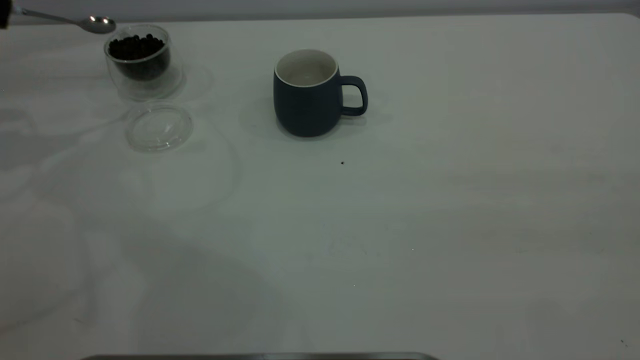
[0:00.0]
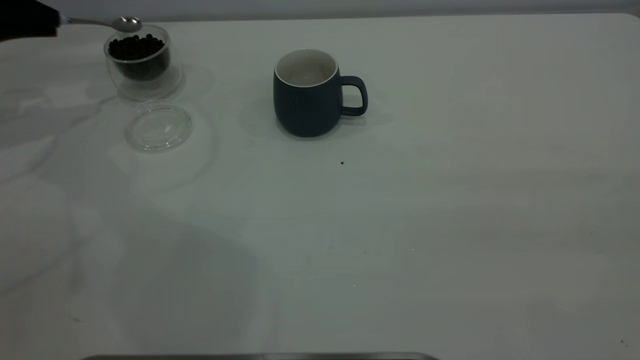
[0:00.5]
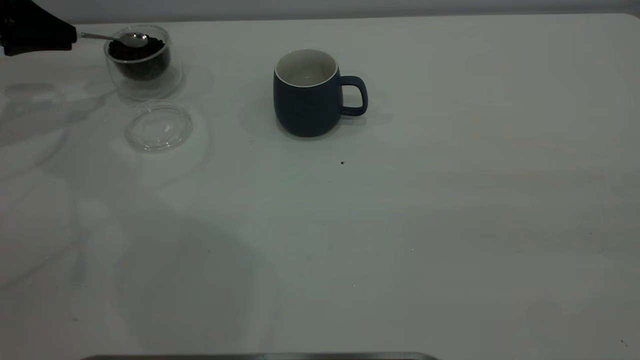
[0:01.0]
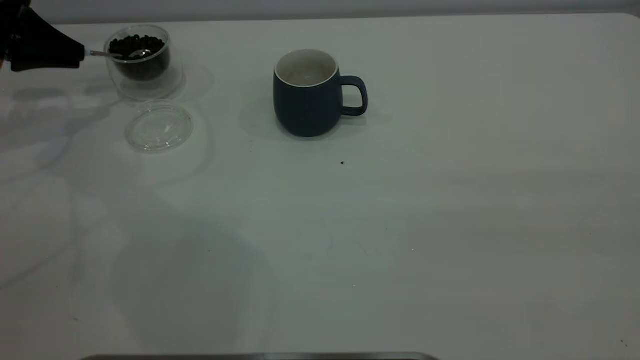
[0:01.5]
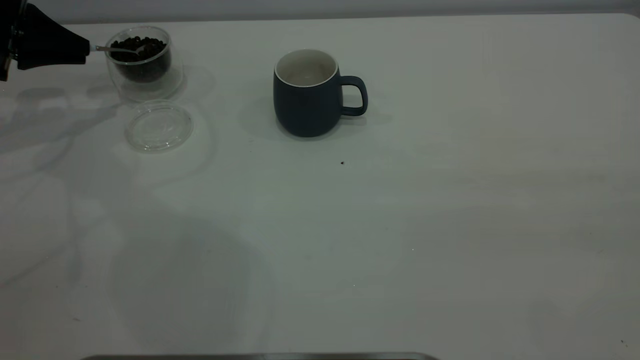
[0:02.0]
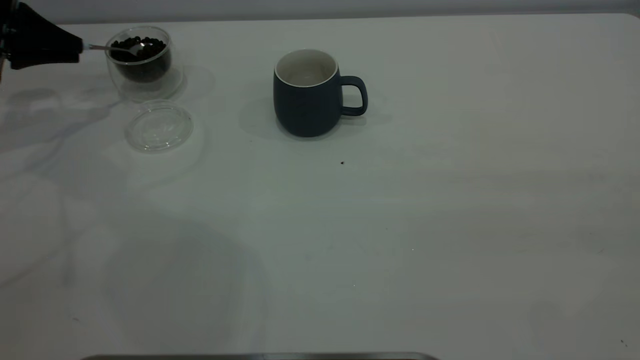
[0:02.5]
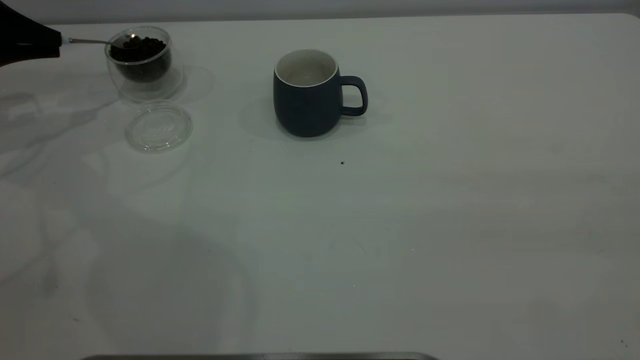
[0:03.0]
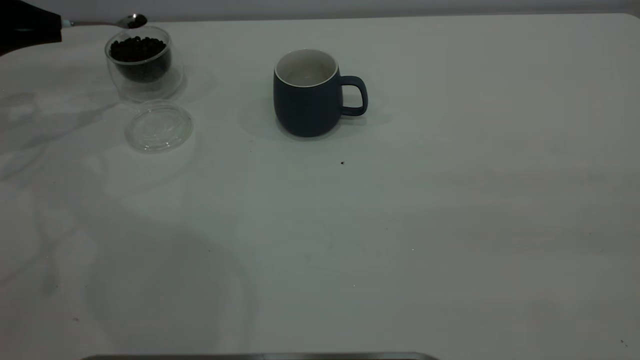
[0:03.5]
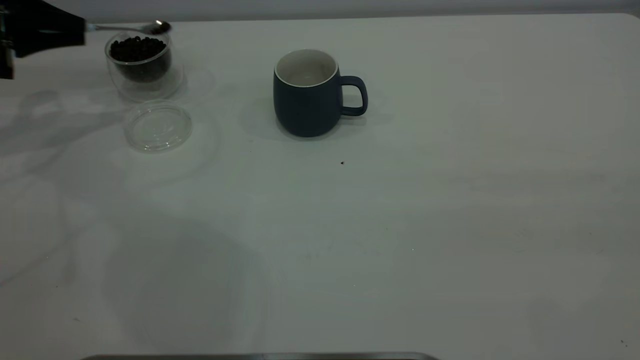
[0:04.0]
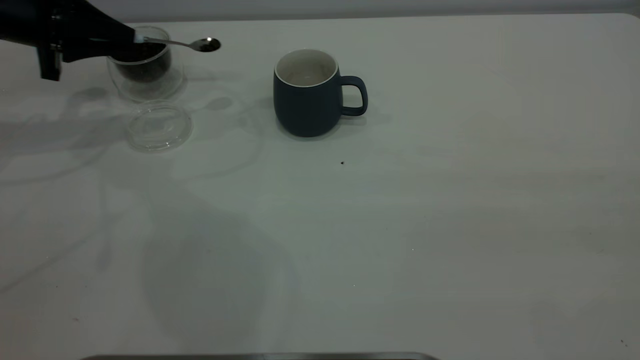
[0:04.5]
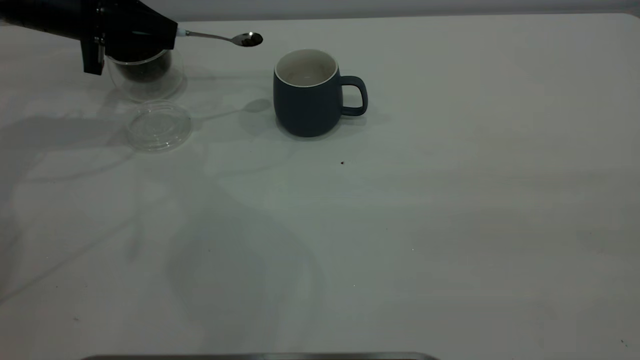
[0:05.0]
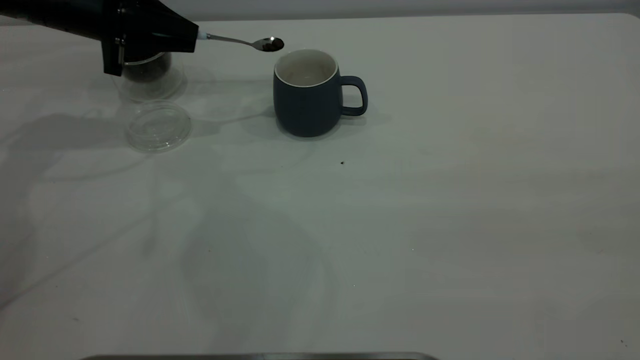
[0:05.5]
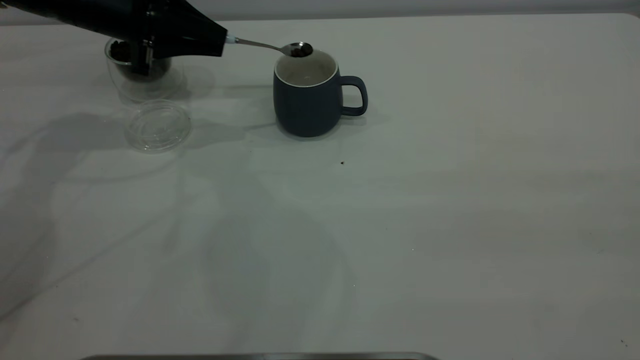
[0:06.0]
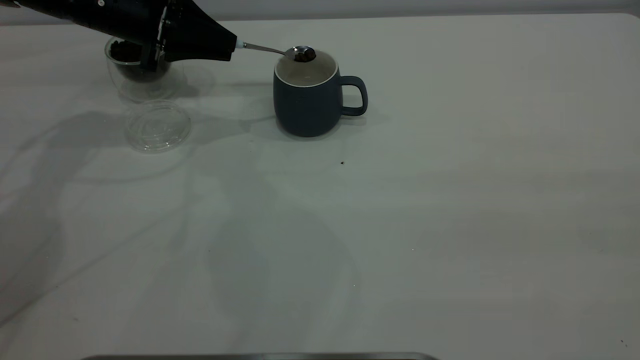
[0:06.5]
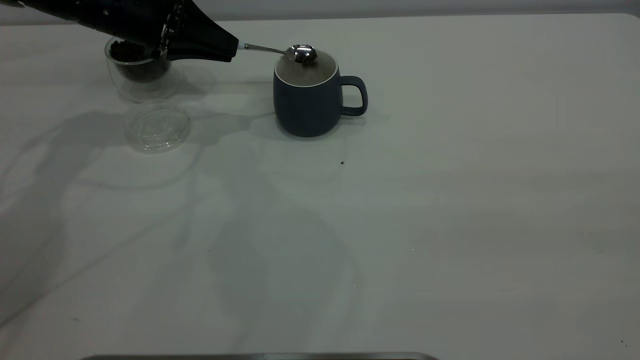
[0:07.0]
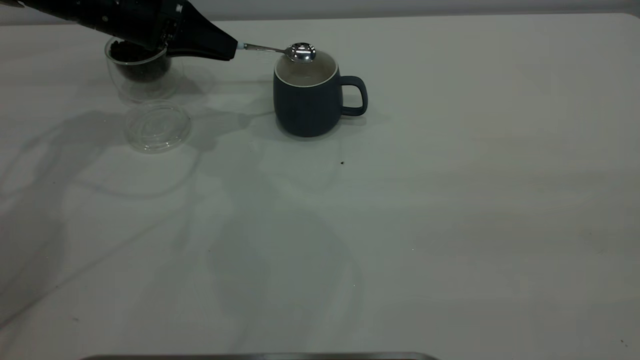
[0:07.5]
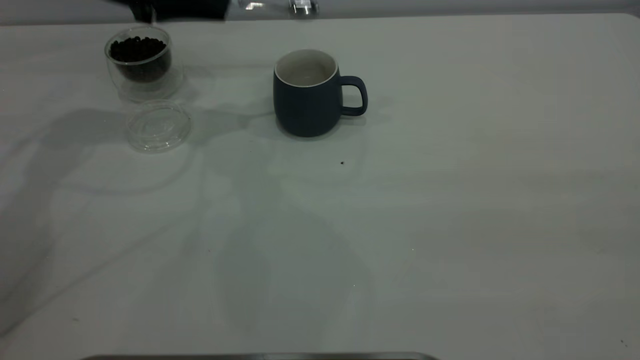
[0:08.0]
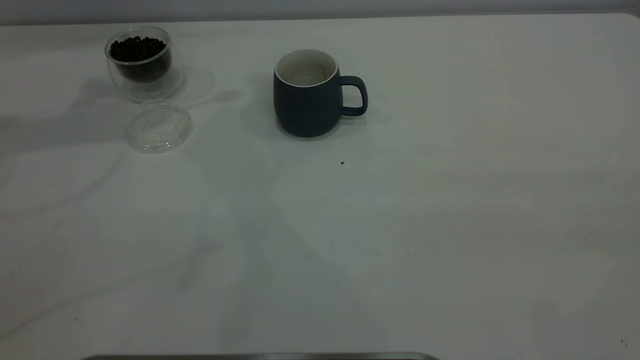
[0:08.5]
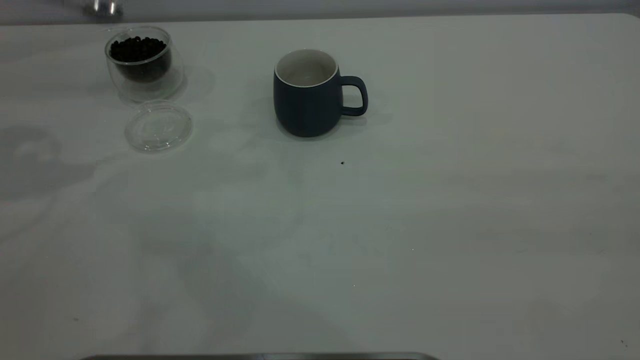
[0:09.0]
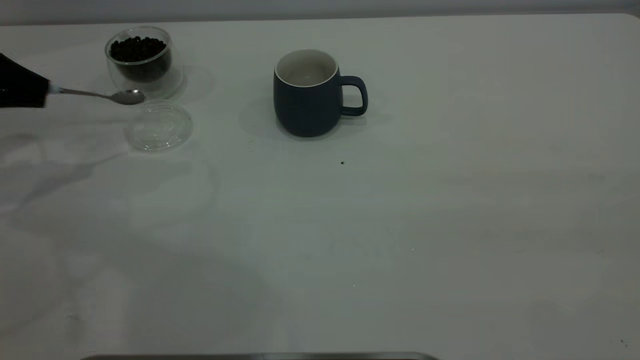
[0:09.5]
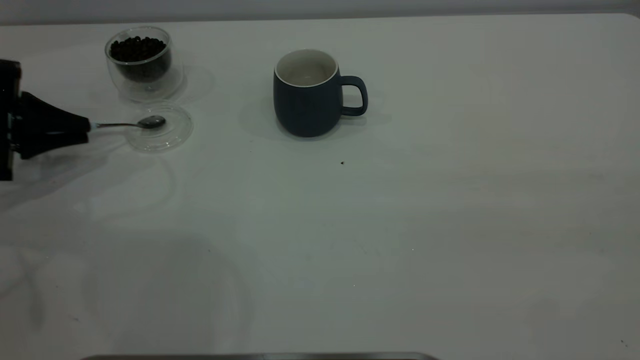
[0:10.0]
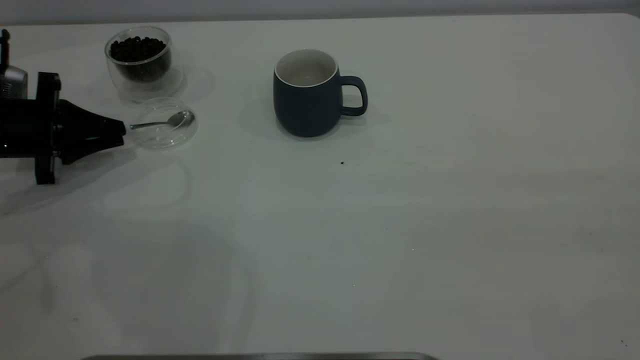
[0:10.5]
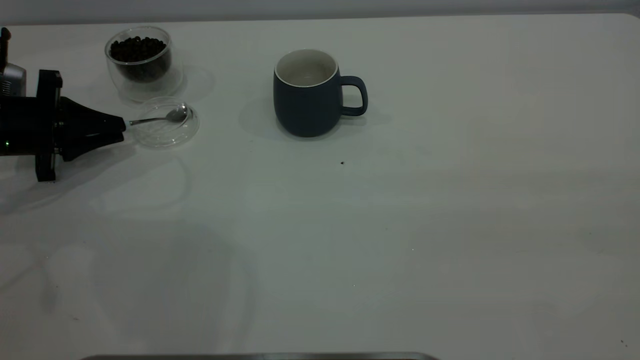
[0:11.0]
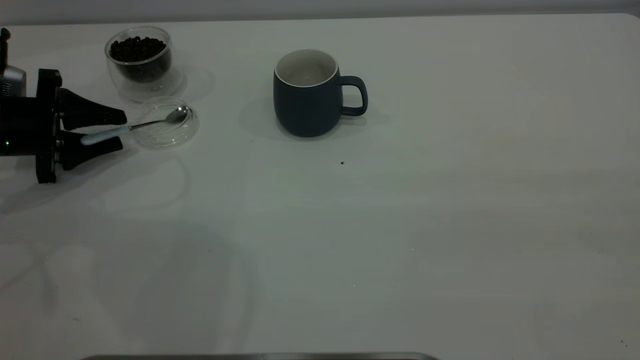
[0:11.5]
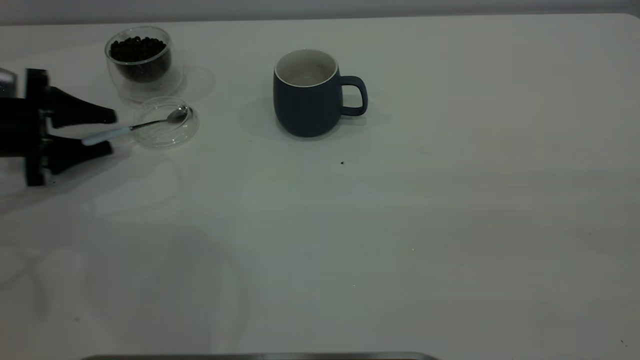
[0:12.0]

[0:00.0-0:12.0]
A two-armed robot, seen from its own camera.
Task of the whole recording: the right gripper place the grey cup in the center of the table, the left gripper take the blue spoon from the cup lid and scoop out the coffee beans from the coffee cup and put them into the grey cup, the left gripper put the spoon back into the cup lid.
Step, 0:00.0 to 0:07.5: Scoop a spoonful of beans into the cup.
0:00.0 to 0:02.0: The left gripper moves downward, some 10 cm.
0:02.0 to 0:04.0: There are only small adjustments of the grippers.
0:04.0 to 0:06.0: The left gripper shifts about 15 cm to the right.
0:06.0 to 0:08.0: The left gripper travels upward by about 5 cm.
0:08.0 to 0:10.0: The left gripper is displaced to the left, downward and backward by about 25 cm.
0:10.0 to 0:12.0: The left gripper opens its fingers.

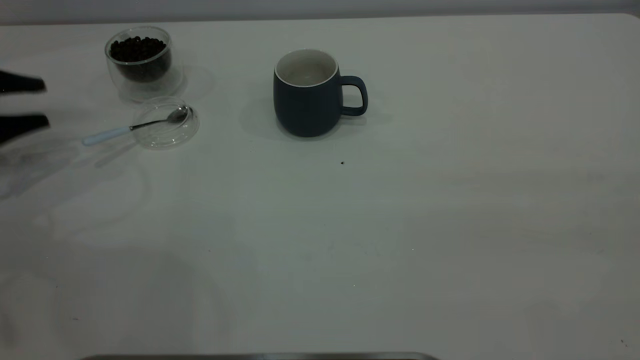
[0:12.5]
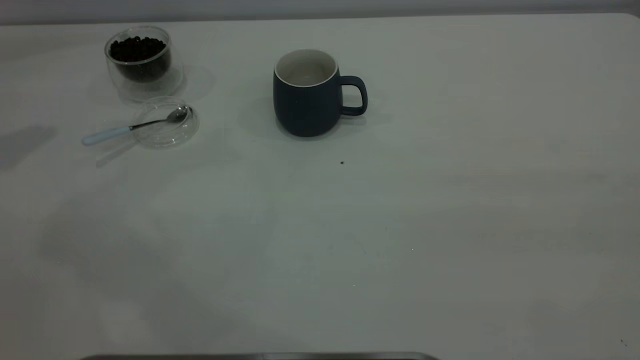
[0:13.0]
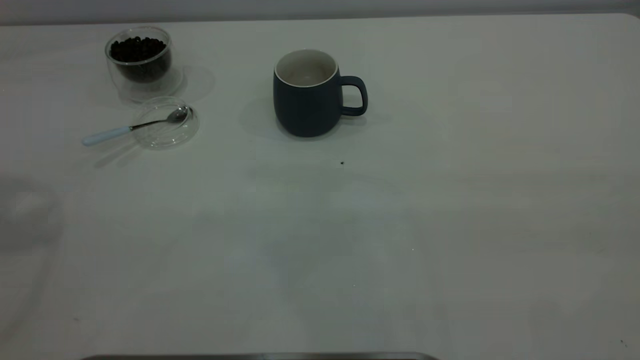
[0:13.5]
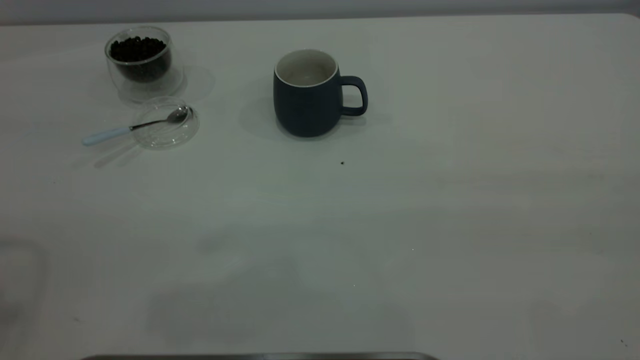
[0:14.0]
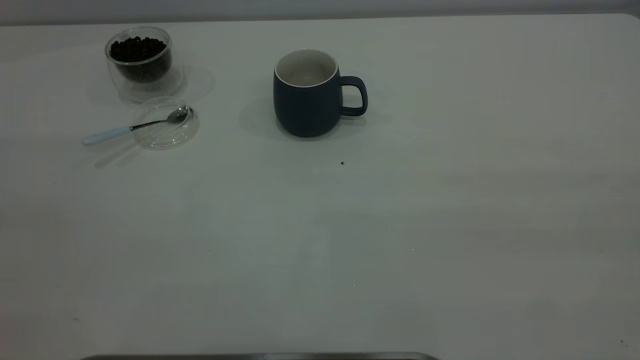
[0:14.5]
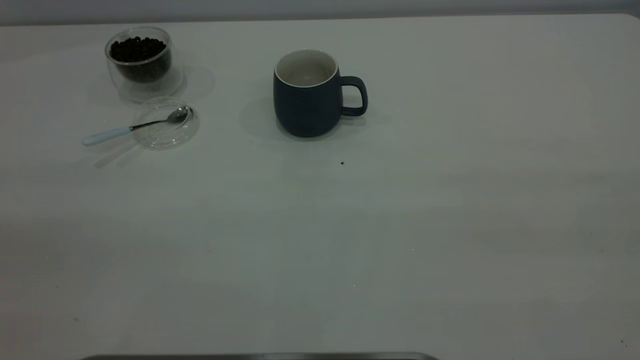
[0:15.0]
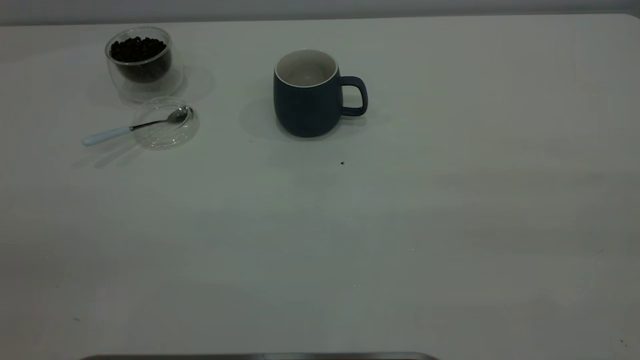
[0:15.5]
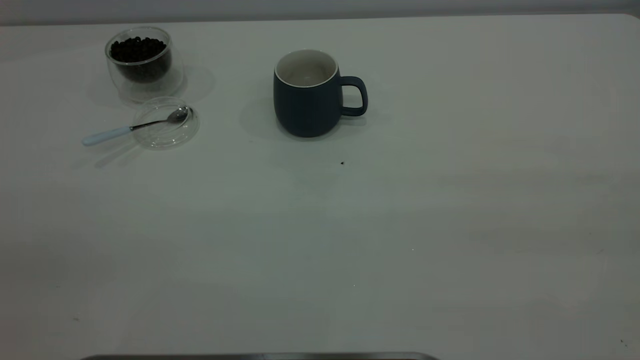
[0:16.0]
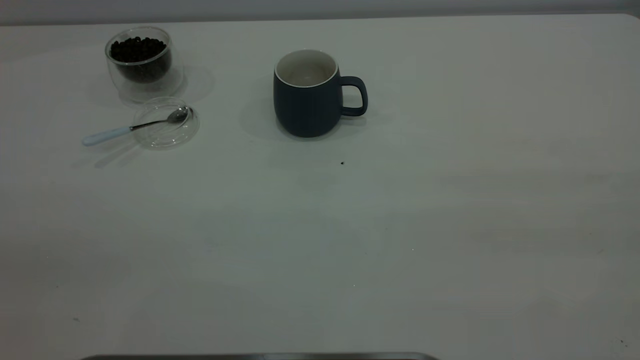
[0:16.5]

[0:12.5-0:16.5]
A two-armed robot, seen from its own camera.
Task of the whole recording: the right gripper place the grey cup in the center of the table, the left gripper take the blue spoon from the cup lid and scoop out the coffee beans from the coffee cup and put them into the grey cup, the left gripper put the spoon back into the cup lid.
0:12.5 to 0:14.5: The left gripper is displaced backward, upward and to the right by some 40 cm.

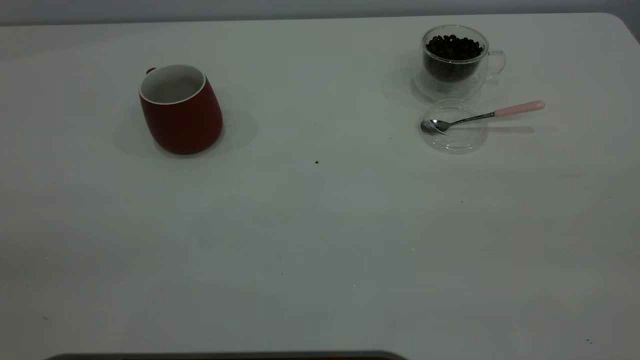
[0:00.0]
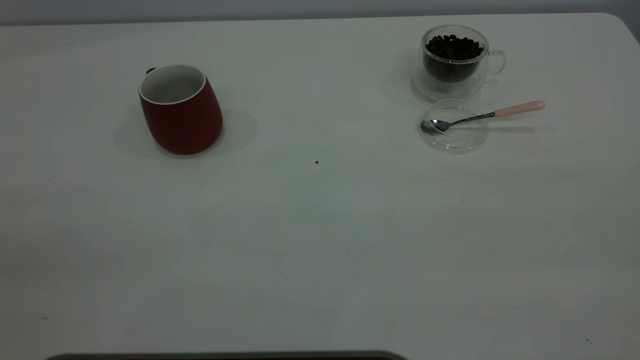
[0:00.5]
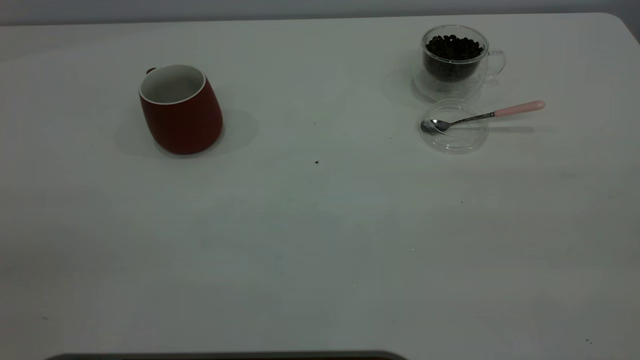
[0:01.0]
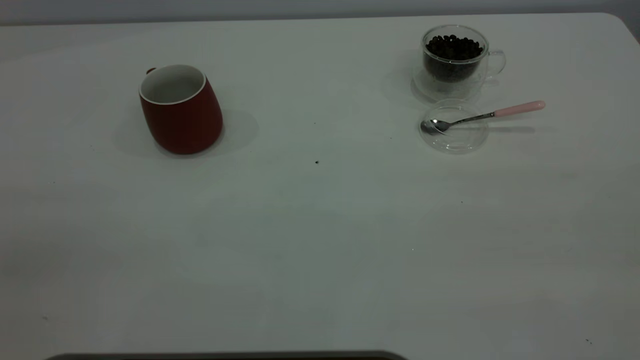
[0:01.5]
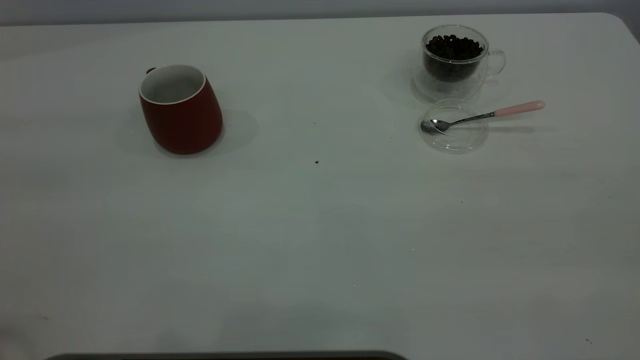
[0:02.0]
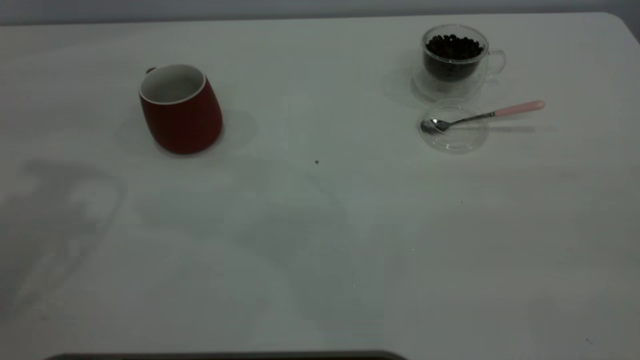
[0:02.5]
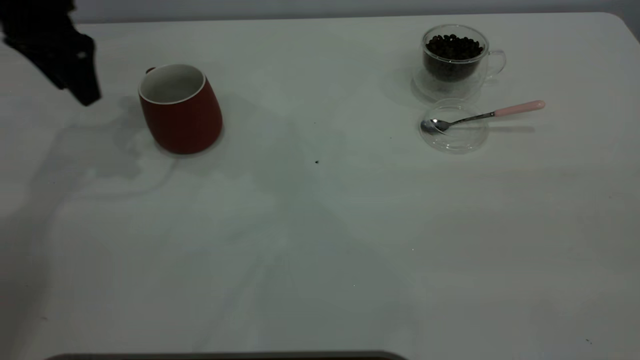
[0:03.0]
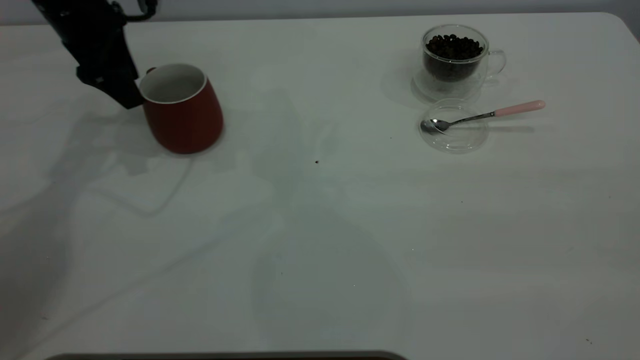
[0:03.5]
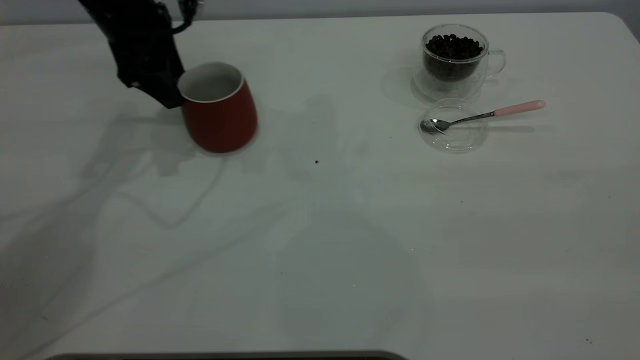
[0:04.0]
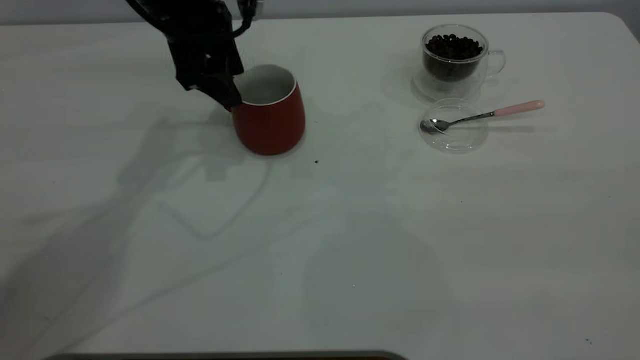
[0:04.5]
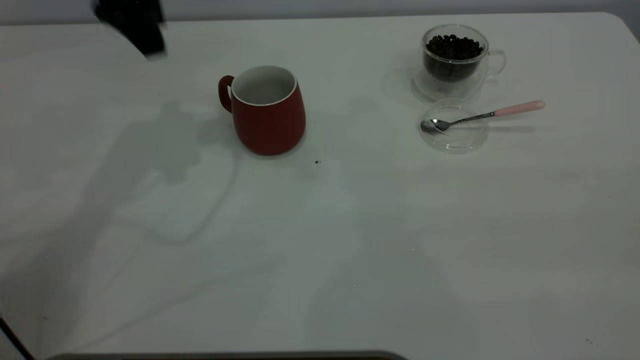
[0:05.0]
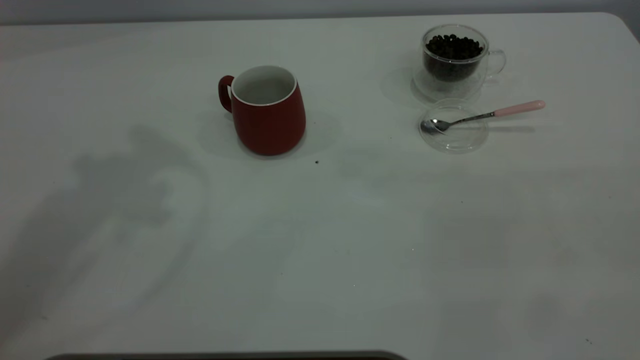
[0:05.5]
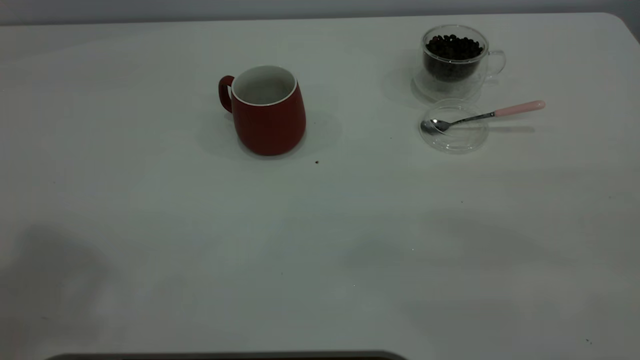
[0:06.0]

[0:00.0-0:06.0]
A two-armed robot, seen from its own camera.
Task of the whole recording: the left gripper place the red cup in the center of the table, the right gripper take the pink spoon from the cup lid and scoop out the coffee beans from the coffee cup and put them into the red cup, the right gripper put the spoon back into the cup lid.
Step, 0:00.0 to 0:04.5: Move the cup to the center of view.
0:02.0 to 0:04.0: The left gripper goes about 40 cm forward and downward.
0:04.0 to 0:06.0: The left gripper heads upward and backward, covering approximately 40 cm.
